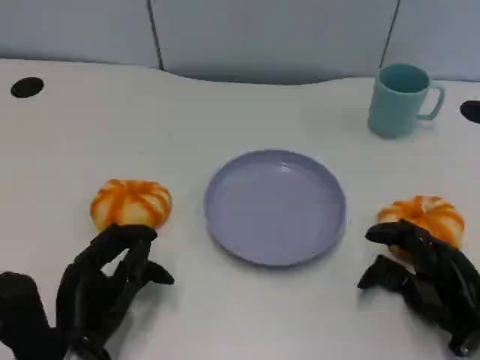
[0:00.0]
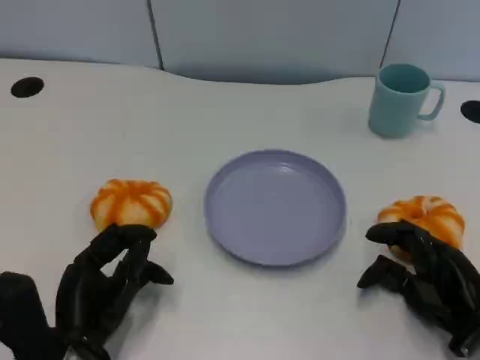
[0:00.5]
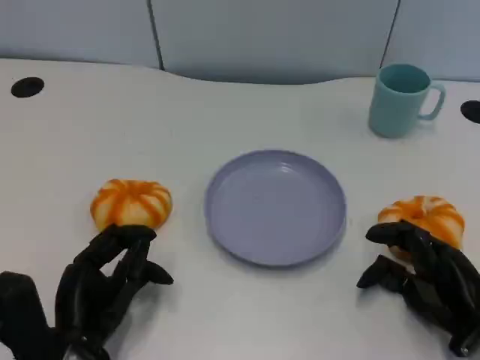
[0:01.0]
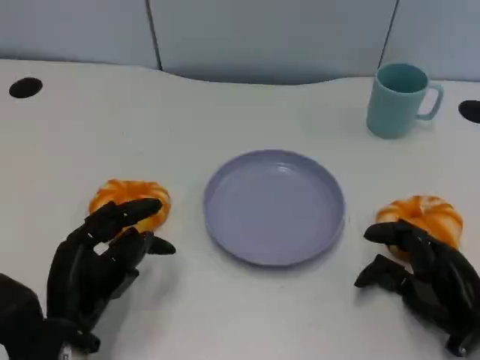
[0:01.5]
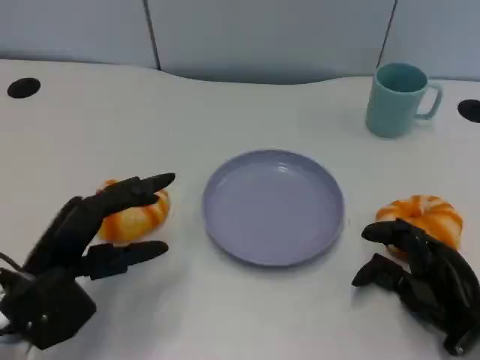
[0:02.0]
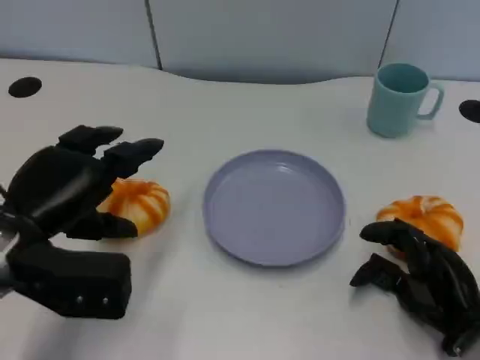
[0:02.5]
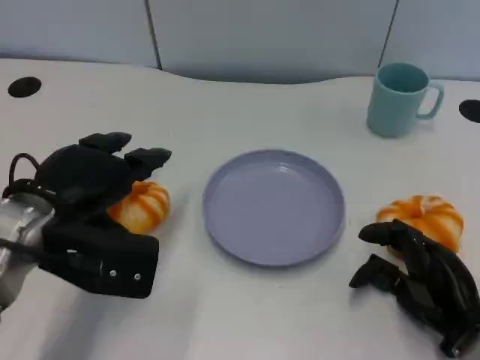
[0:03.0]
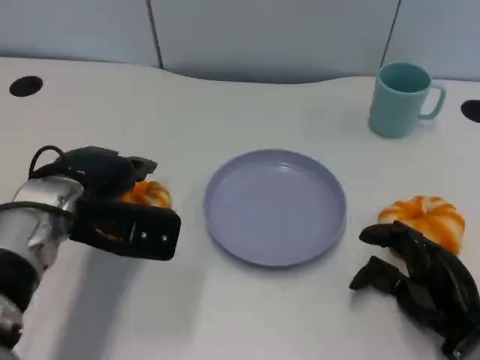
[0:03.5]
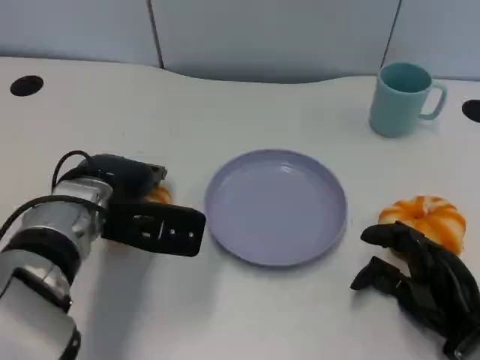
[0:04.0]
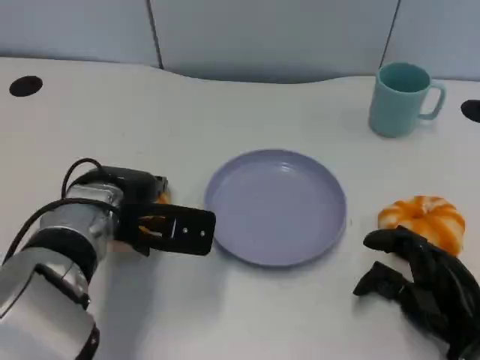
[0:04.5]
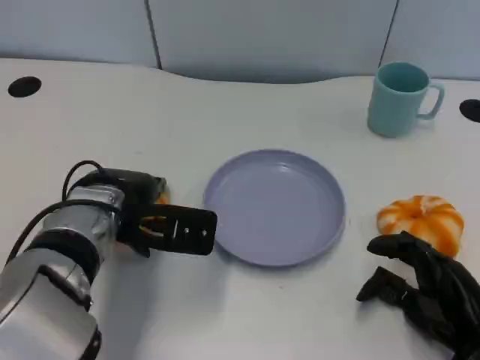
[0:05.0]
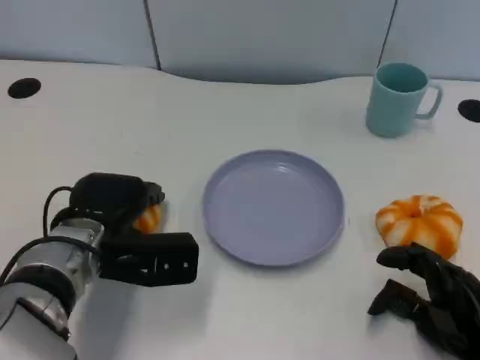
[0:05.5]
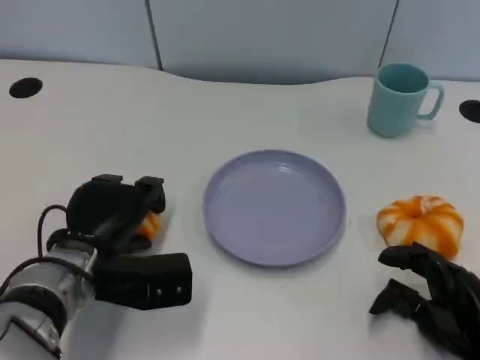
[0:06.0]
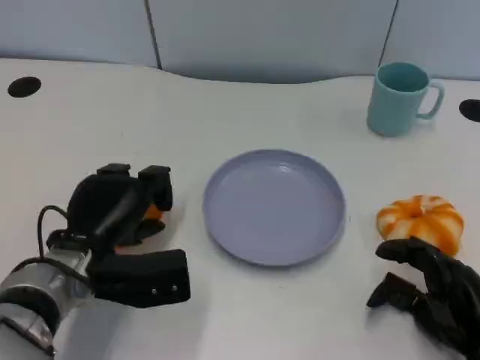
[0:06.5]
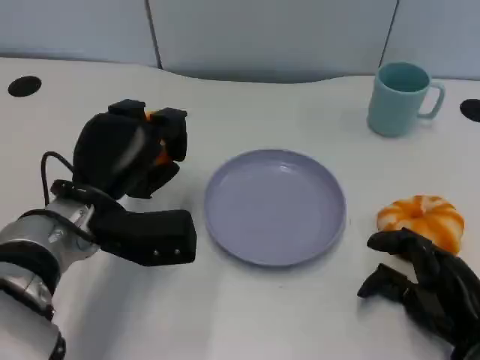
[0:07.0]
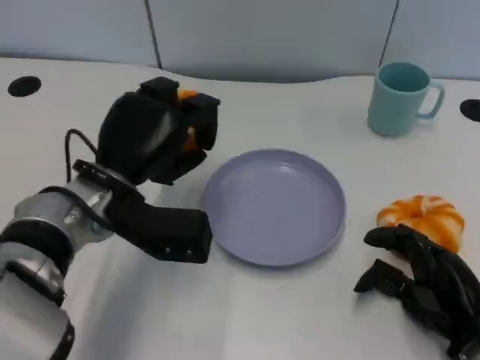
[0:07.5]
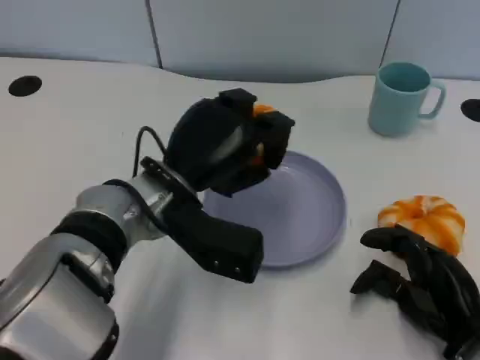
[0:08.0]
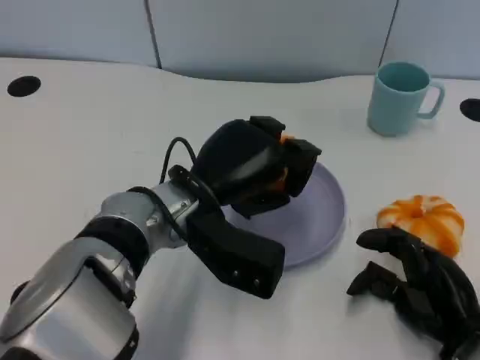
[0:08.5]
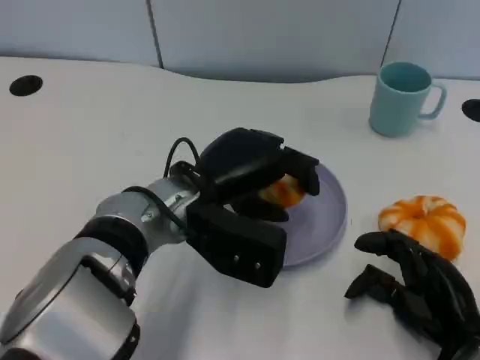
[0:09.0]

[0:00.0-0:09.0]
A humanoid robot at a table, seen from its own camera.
Task of the whole recording: Grasp the bread from the table and place it into the plate.
0:00.0 to 0:02.0: The left hand moves upward, about 5 cm.
0:02.0 to 0:04.5: The left hand heads forward and to the right, covering some 10 cm.
0:07.0 to 0:09.0: The left hand is displaced to the right by about 10 cm.

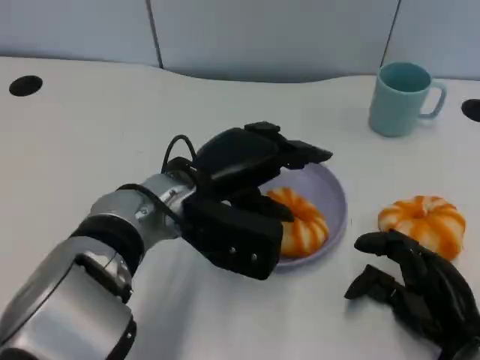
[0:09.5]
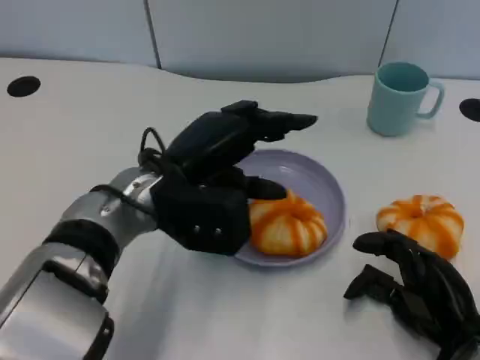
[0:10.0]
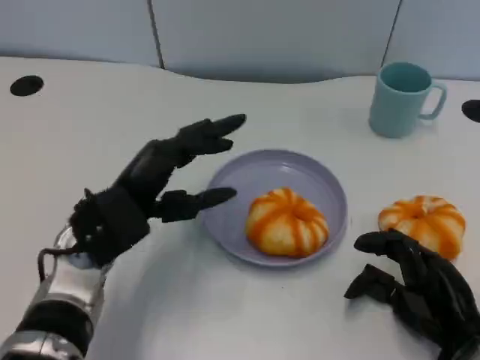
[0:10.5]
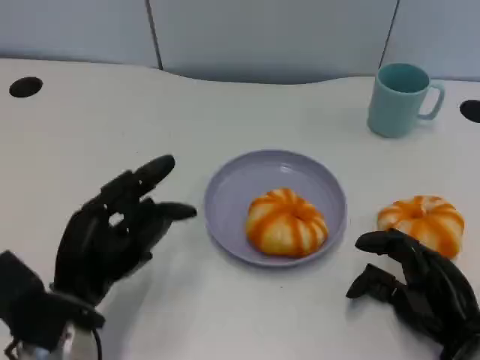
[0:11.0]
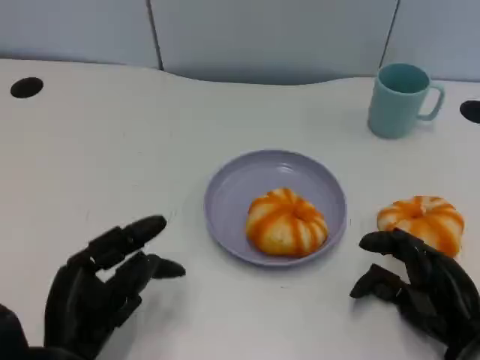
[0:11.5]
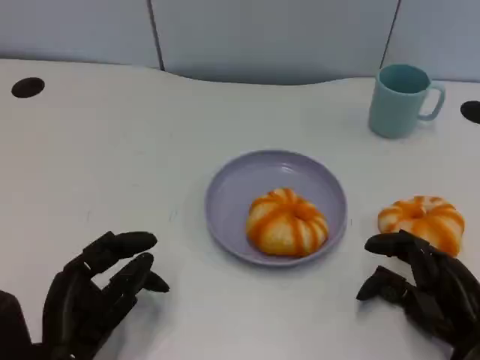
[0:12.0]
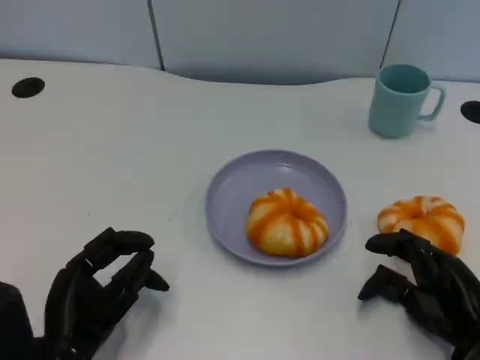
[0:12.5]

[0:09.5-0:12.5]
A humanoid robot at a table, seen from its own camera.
Task of the whole recording: Grasp the bread from the table and place it into the plate.
0:09.5 to 0:11.0: The left hand is displaced to the left, backward and downward by approximately 15 cm.

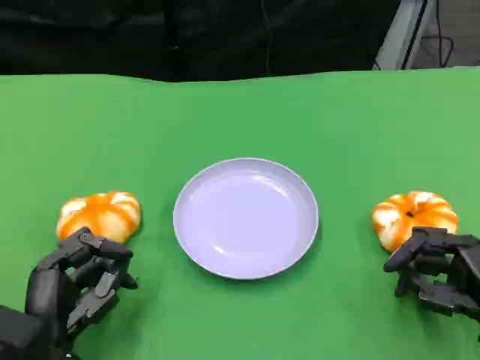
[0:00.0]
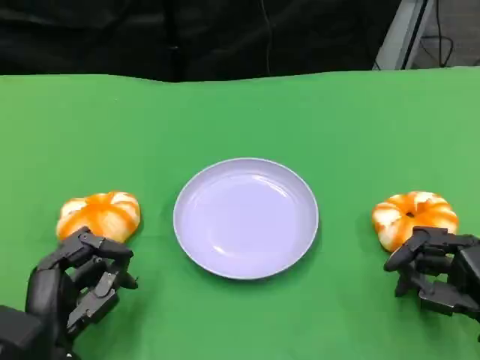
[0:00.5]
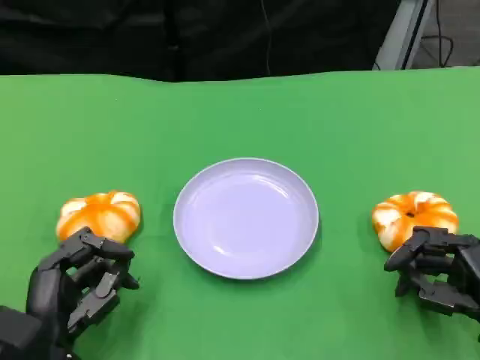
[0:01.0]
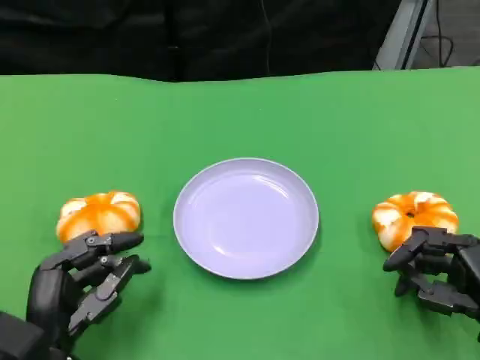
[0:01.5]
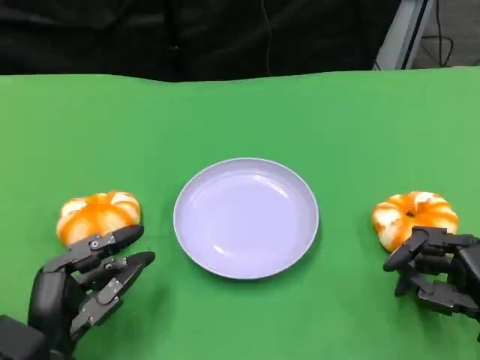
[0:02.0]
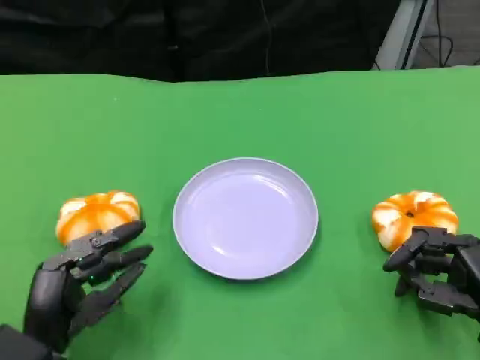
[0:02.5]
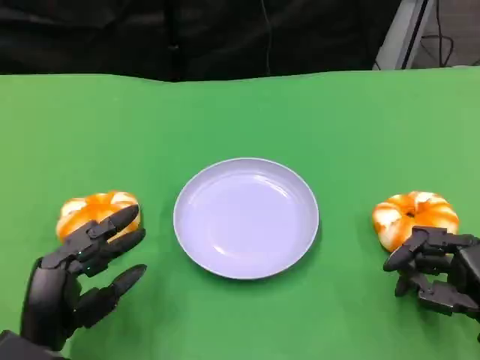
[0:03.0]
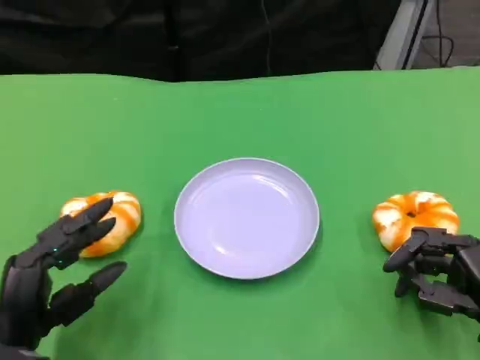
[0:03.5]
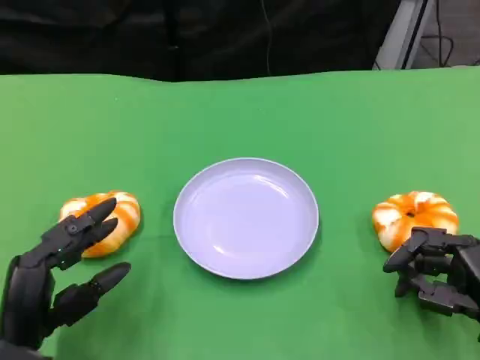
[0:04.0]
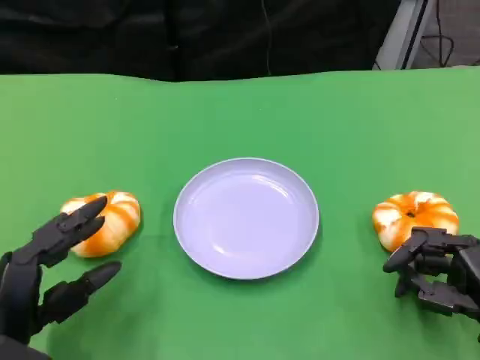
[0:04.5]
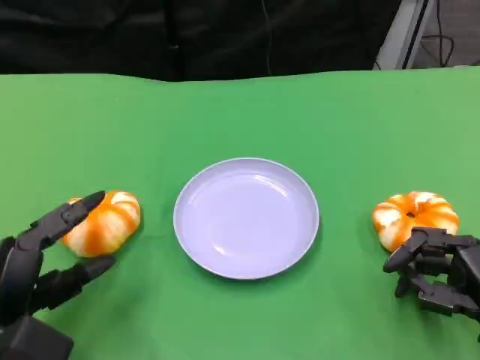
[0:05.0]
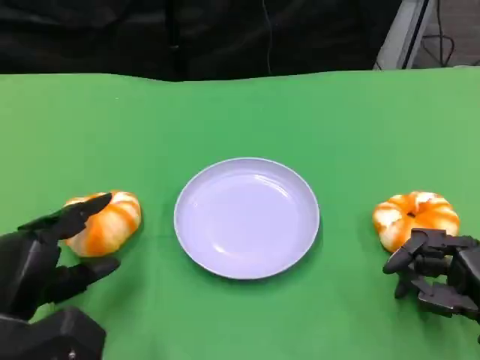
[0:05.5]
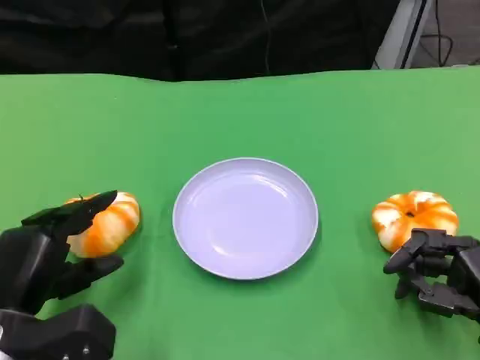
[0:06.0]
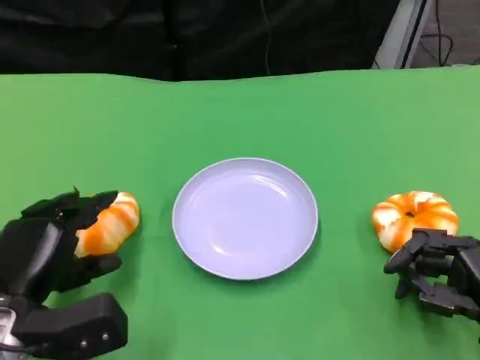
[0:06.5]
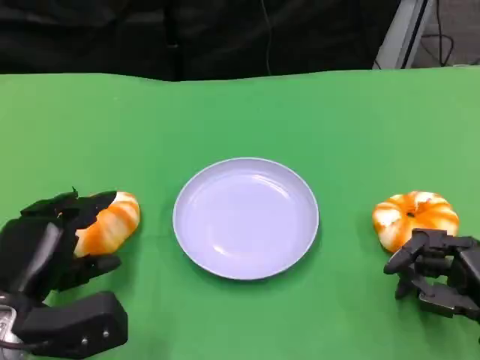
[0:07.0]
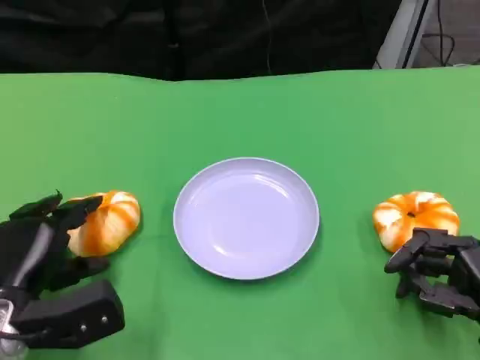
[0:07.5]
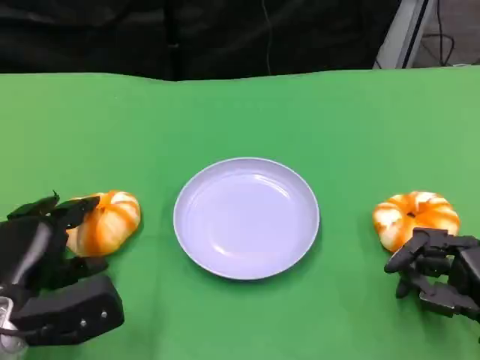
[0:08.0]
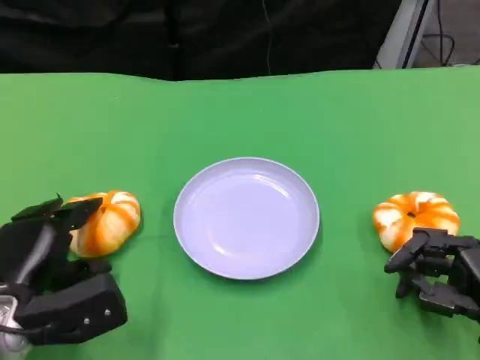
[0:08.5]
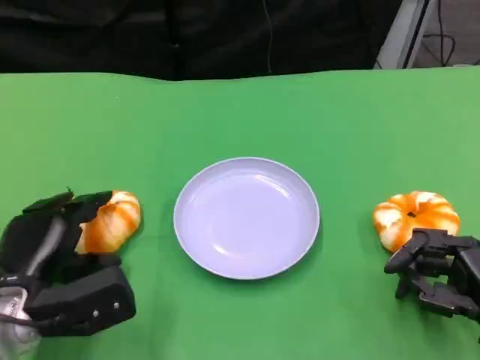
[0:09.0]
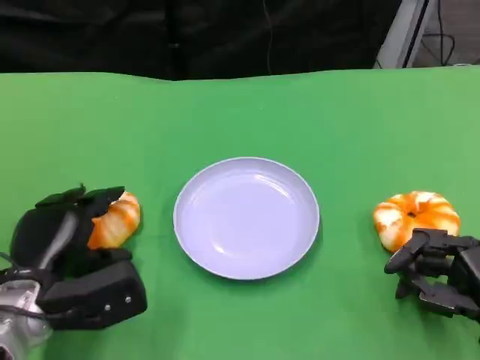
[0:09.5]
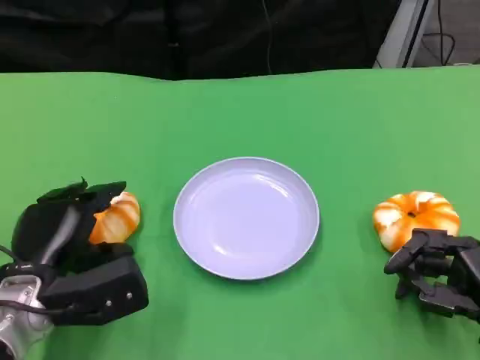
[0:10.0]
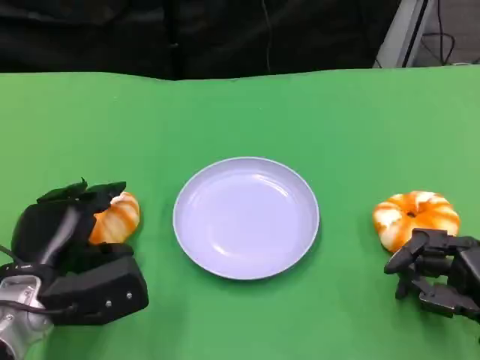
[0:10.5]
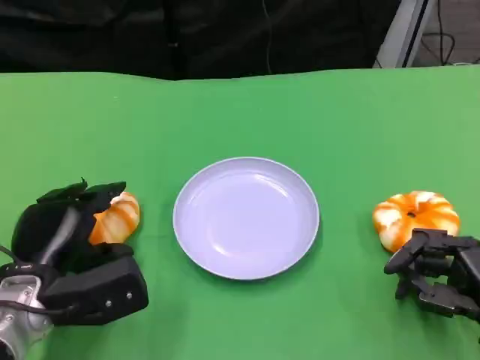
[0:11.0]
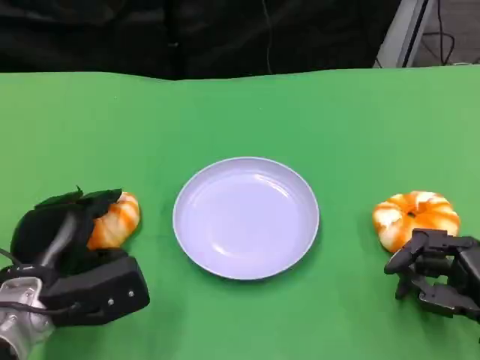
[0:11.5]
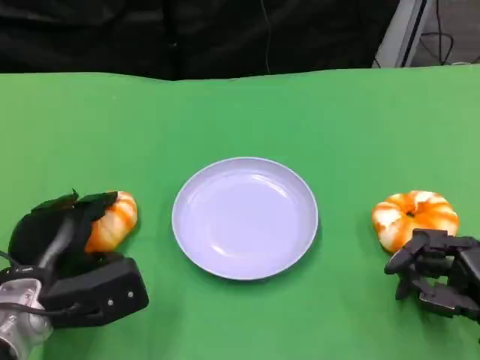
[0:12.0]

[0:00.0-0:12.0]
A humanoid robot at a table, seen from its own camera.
Task of the whole recording: Grasp the bread from the table and place it into the plate.
0:00.0 to 0:02.0: The hands make only small movements.
0:06.0 to 0:10.0: The hands make only small movements.
0:10.0 to 0:12.0: There are only small adjustments of the hands.

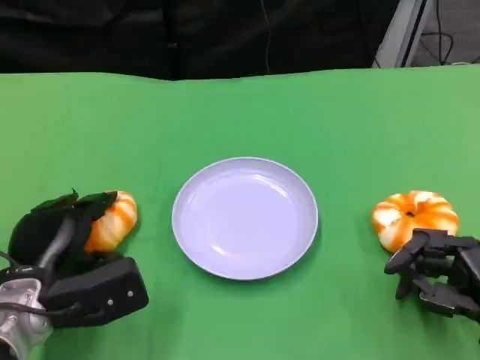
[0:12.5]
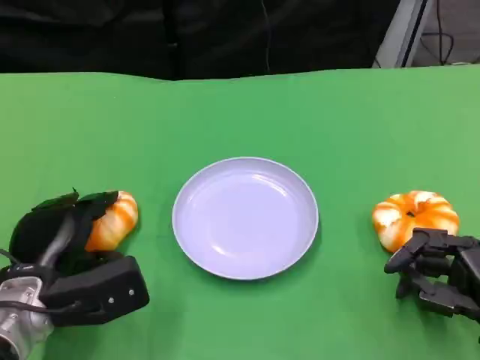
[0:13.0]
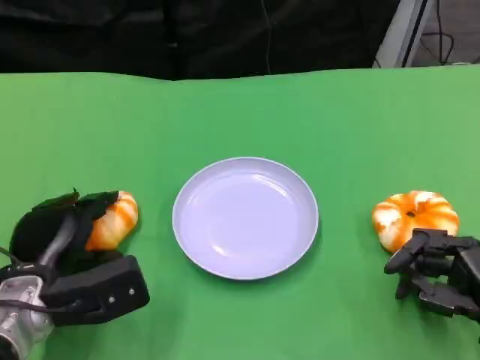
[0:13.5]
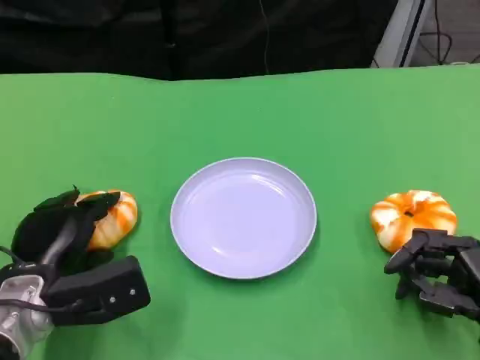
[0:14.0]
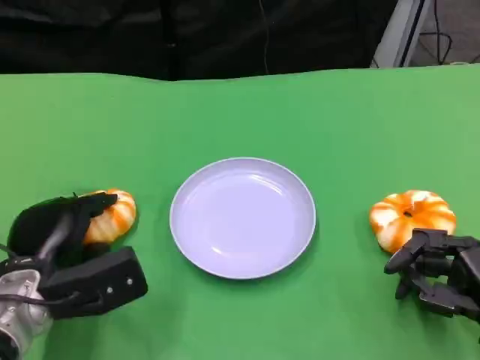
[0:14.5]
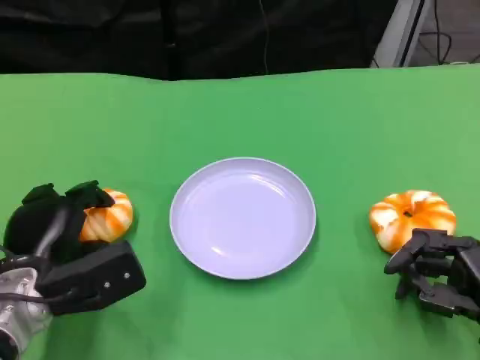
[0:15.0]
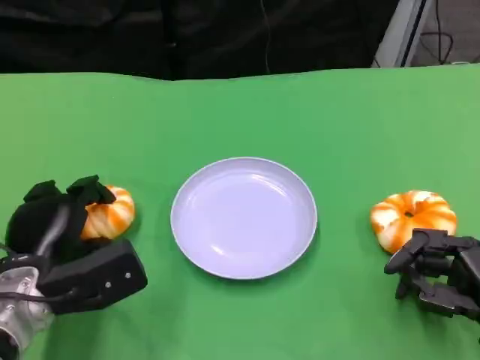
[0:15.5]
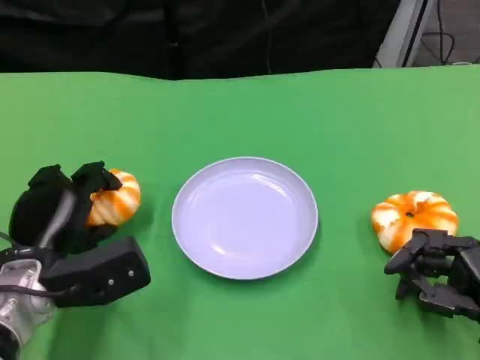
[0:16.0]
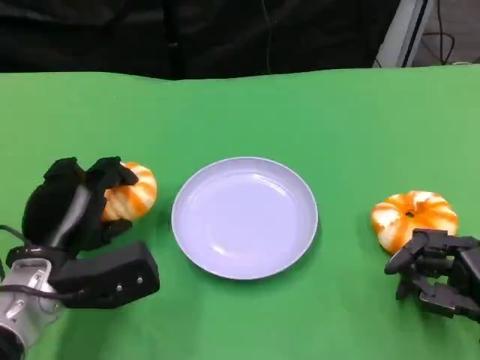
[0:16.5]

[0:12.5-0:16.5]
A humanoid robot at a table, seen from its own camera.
Task of the whole recording: Grasp the bread from the table and place it into the plate.
0:12.5 to 0:14.5: The two hands keep their place.
0:14.5 to 0:16.5: The hands move only a little.
